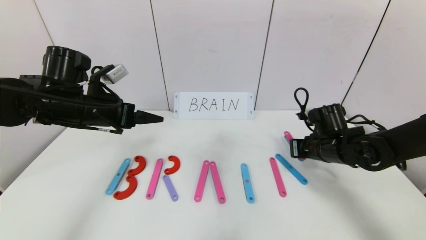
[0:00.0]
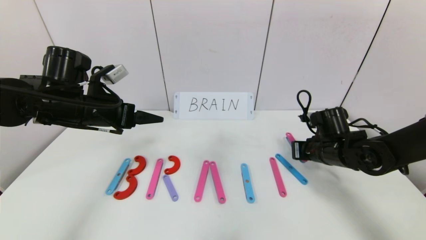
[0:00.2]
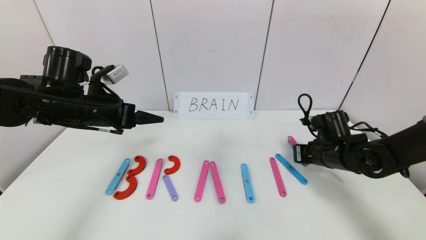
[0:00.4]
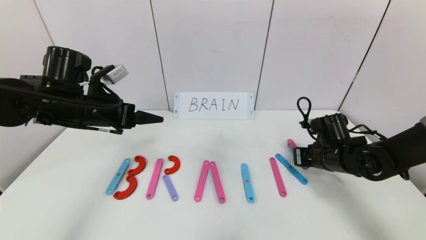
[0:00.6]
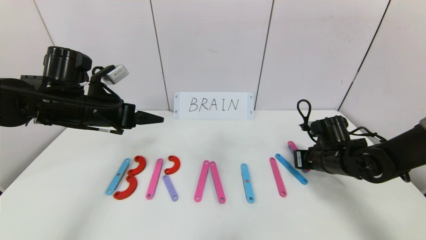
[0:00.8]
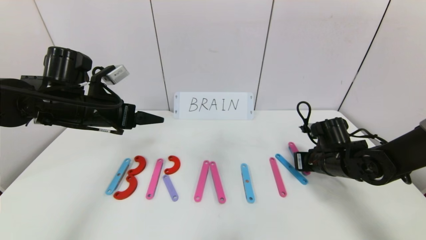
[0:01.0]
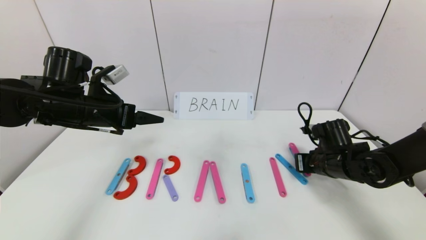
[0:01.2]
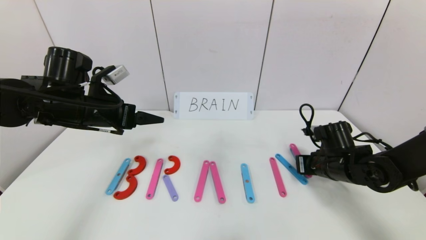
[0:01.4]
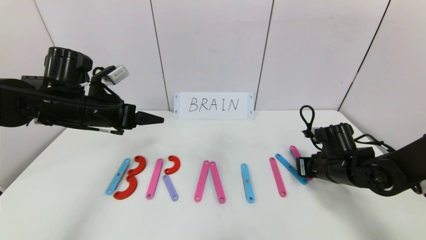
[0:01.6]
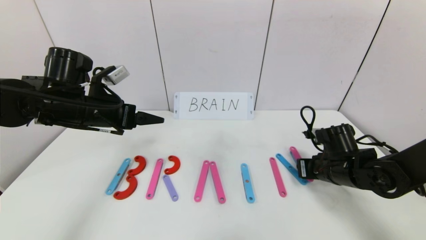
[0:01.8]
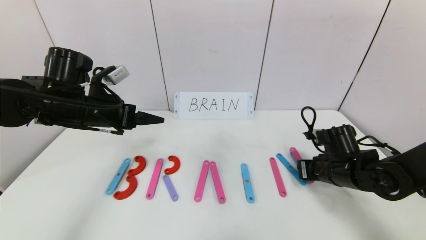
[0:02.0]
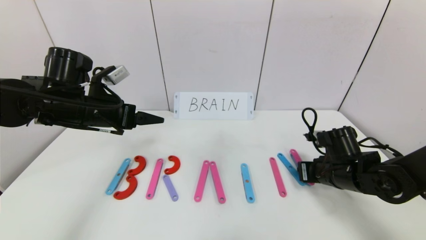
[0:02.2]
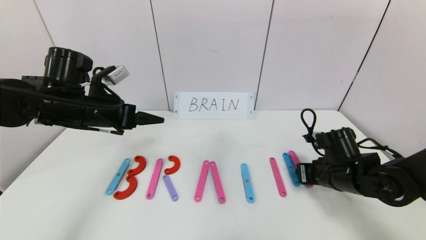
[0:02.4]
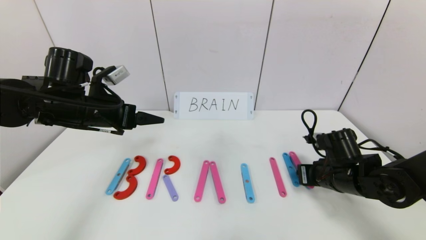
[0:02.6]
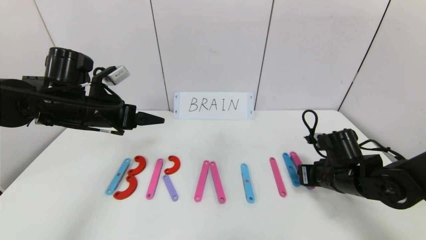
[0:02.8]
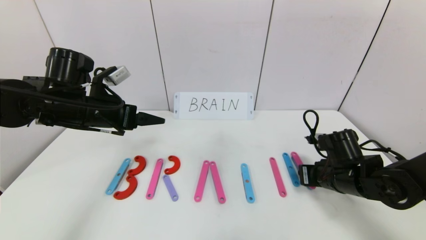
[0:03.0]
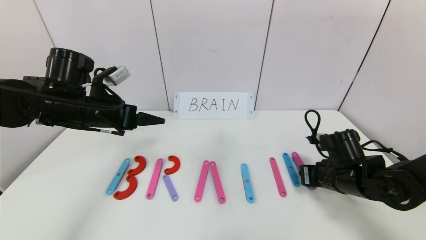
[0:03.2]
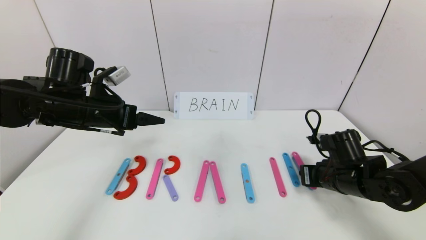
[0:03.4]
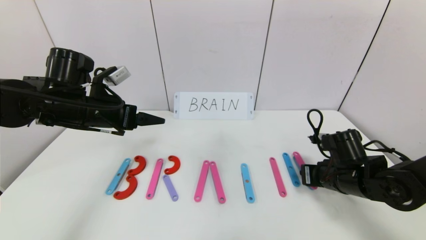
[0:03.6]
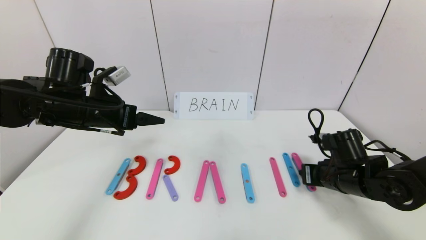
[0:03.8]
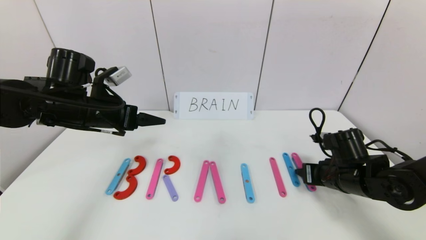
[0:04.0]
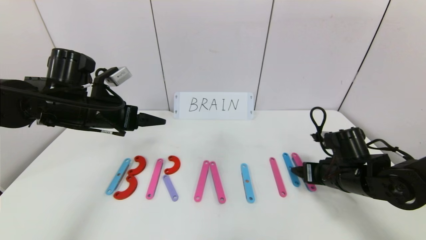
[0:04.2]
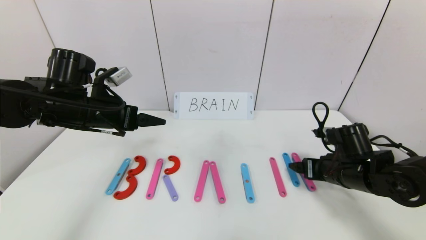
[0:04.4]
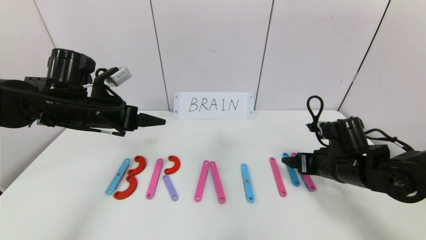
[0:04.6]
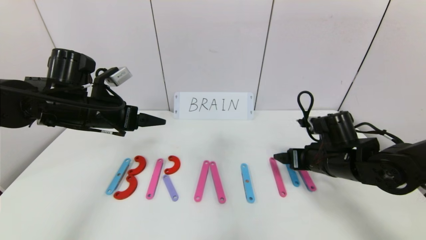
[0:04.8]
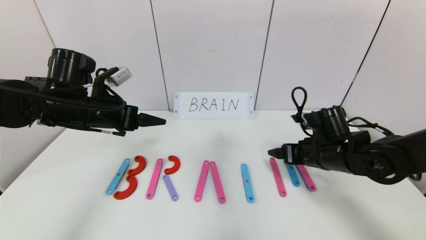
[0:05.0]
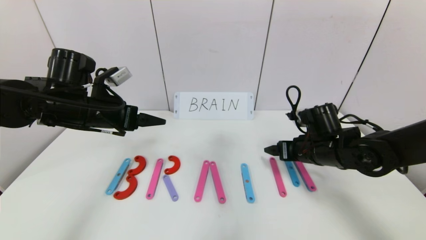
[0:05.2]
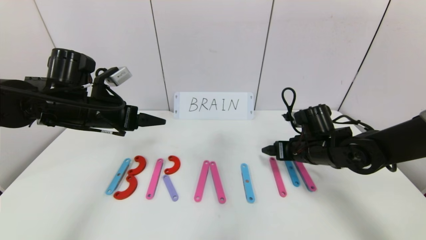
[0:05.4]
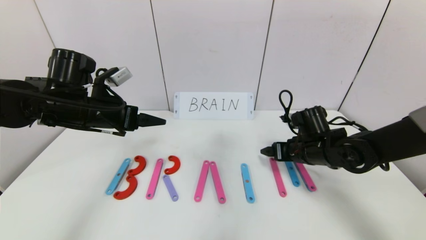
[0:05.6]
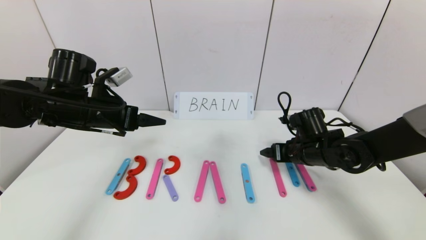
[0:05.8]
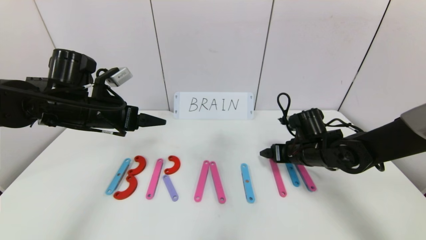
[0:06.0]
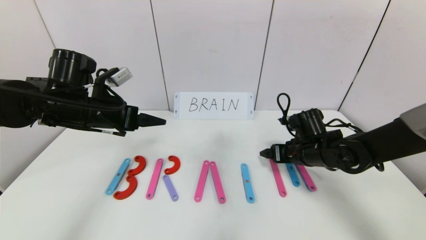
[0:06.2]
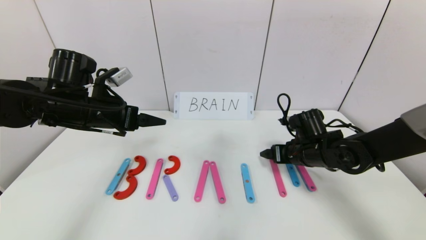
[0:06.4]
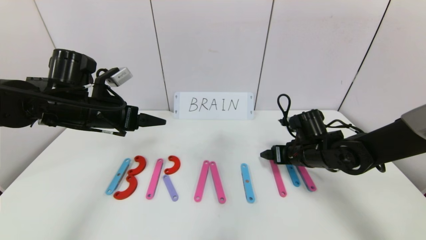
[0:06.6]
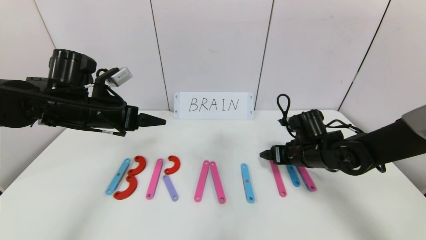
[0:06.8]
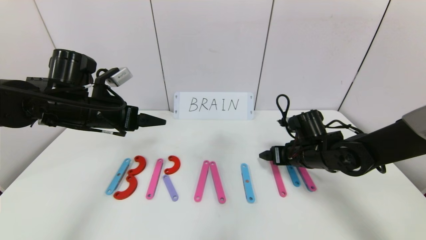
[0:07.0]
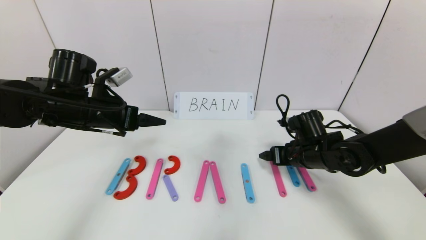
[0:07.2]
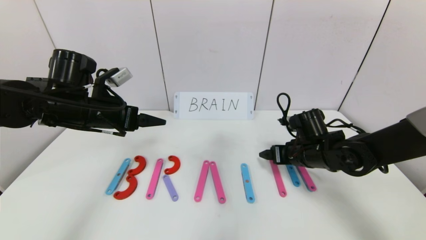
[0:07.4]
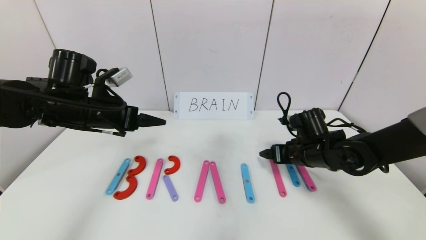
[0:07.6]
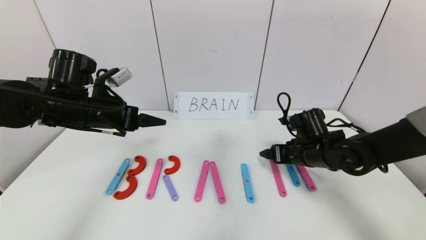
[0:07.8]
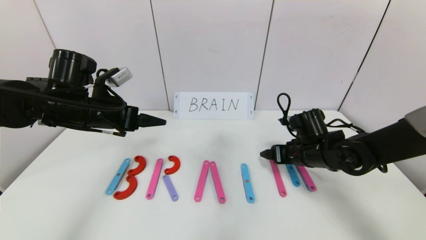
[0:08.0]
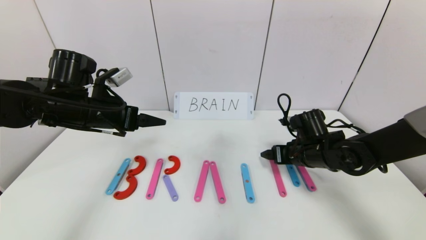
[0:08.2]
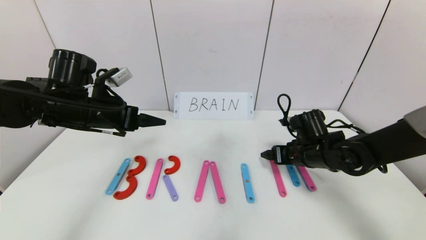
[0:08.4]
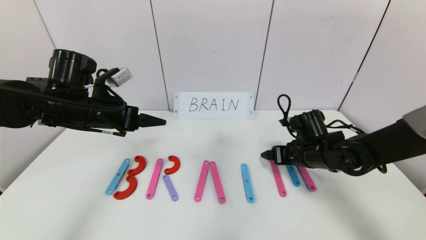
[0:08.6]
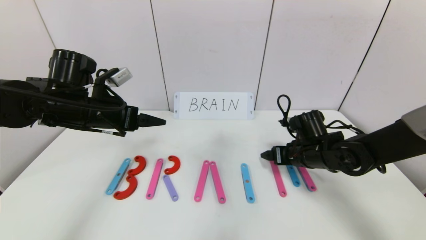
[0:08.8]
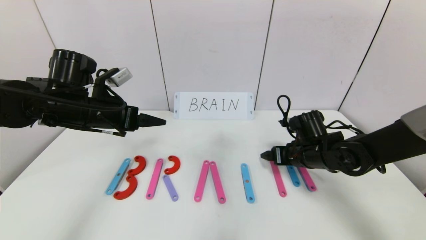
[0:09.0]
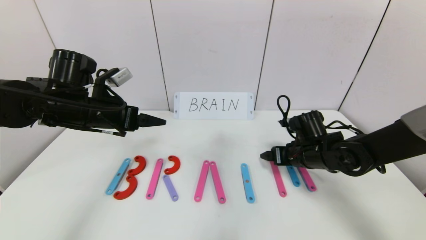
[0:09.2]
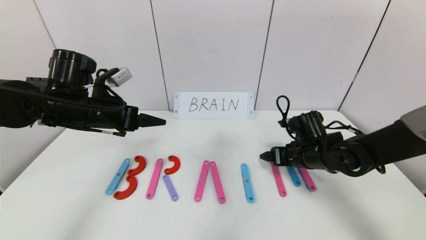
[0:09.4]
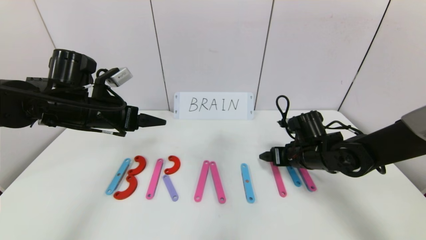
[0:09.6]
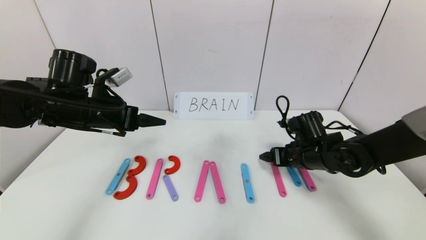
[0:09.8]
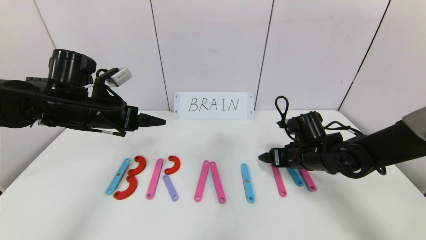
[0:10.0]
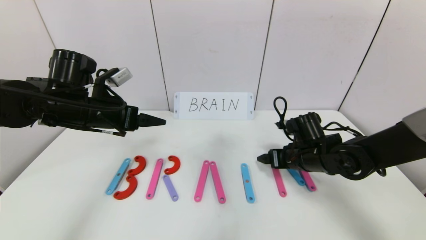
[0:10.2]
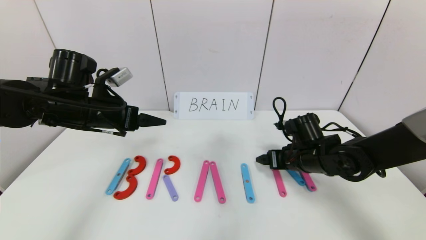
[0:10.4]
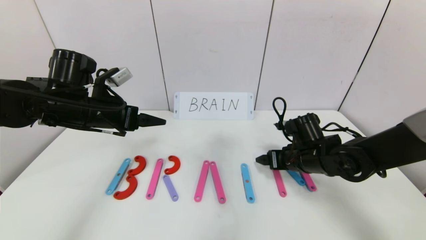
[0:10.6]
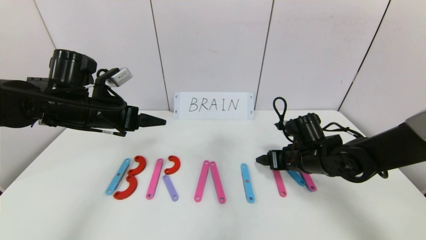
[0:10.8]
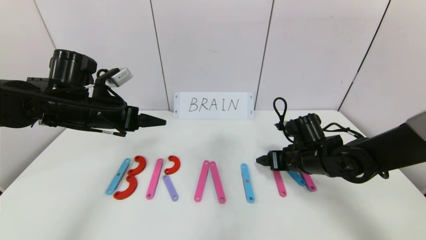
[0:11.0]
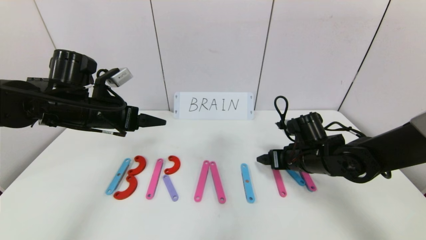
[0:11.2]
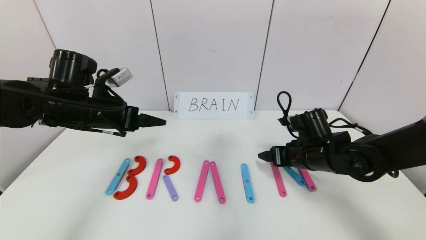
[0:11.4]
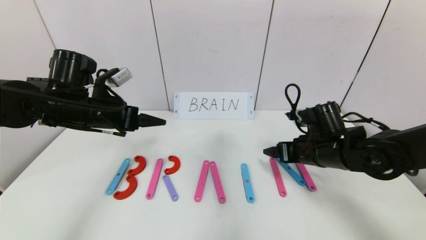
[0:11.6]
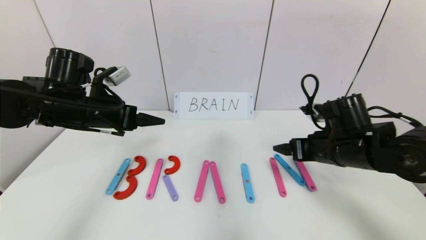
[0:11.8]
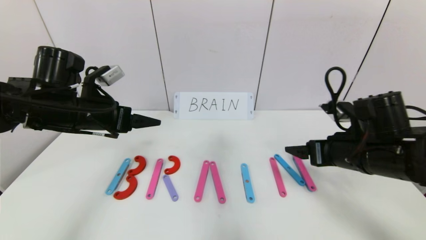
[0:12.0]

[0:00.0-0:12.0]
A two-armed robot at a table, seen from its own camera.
Task of the whole recording: rearrange the word baai as brain.
Step, 0:00.0 to 0:11.6: Place the character N after character I.
0:00.0 to 0:01.6: The grippers make only small movements.
0:01.6 to 0:03.0: There are only small adjustments of the grippers.
0:03.0 to 0:04.4: The right gripper opens its fingers.
0:04.4 to 0:06.0: The right gripper goes approximately 10 cm forward and to the left.
0:06.0 to 0:09.0: Both grippers stay put.
0:09.0 to 0:10.4: The grippers stay close to where they were, moving slightly.
0:10.4 to 0:12.0: The right gripper heads upward, backward and to the right, covering about 15 cm.

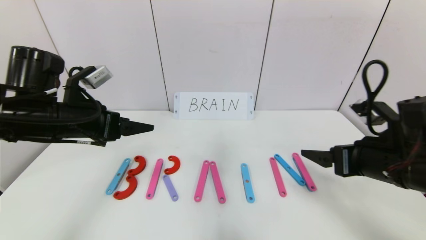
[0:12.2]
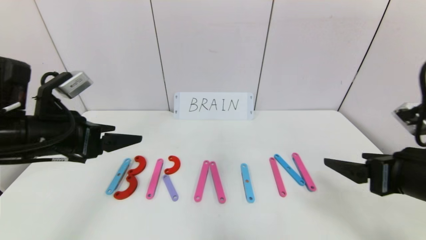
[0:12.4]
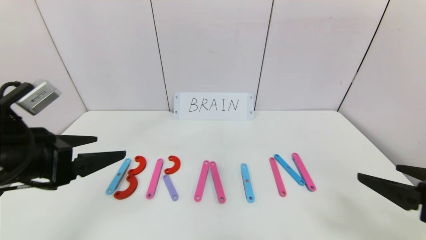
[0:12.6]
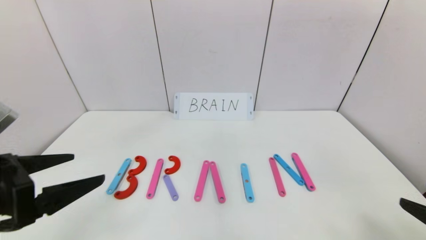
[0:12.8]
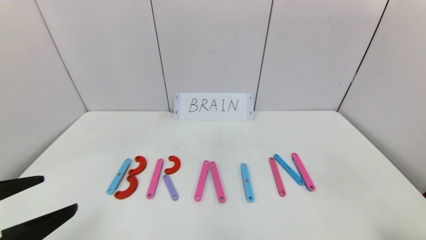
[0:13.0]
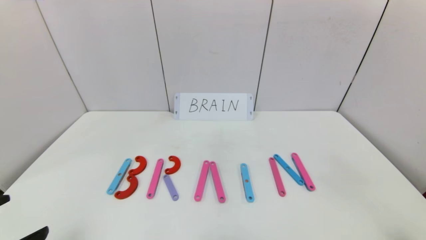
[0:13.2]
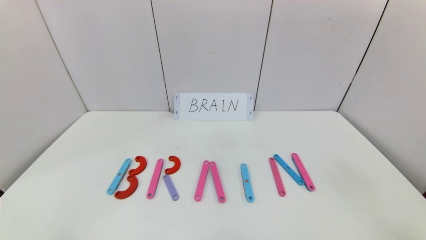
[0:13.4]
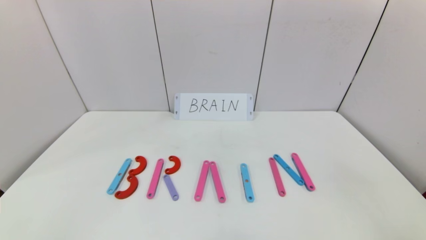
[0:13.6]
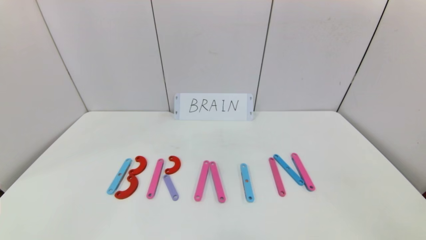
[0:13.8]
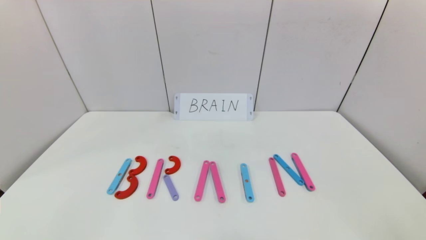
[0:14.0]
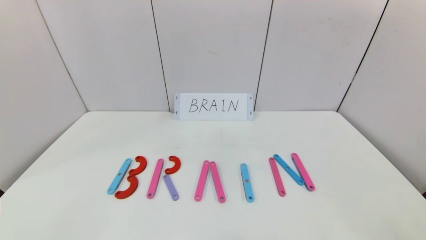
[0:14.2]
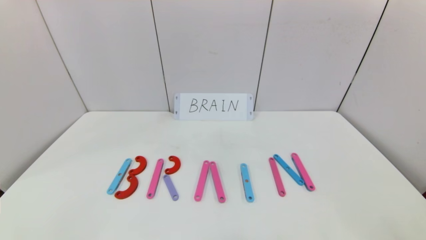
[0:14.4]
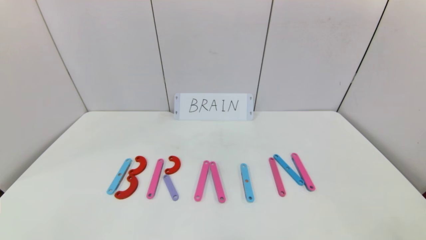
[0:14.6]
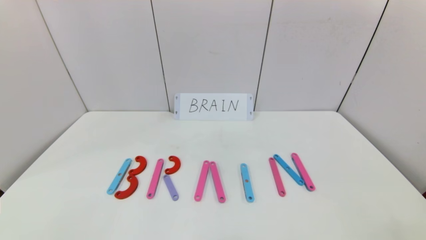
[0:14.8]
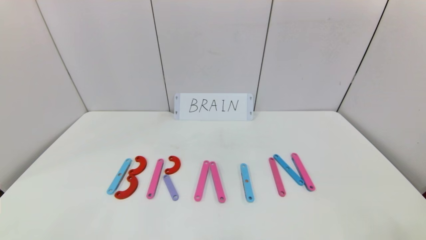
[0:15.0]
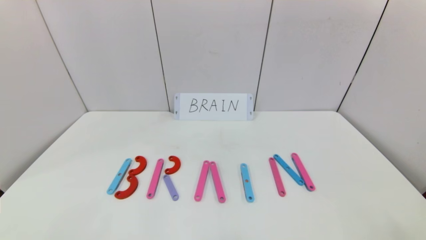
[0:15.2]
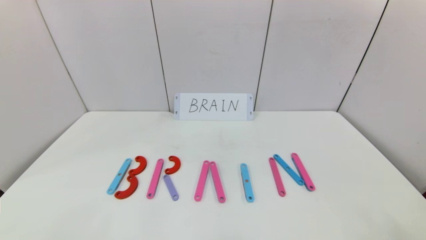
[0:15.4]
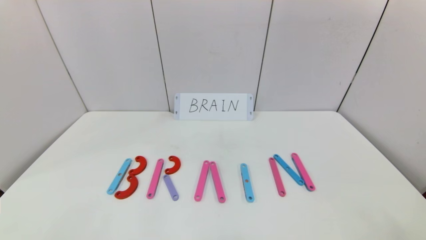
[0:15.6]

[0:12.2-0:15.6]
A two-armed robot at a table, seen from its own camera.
Task of the whole recording: rearrange the word baai as brain.
0:12.2 to 0:13.8: The grippers both shift backward by some 25 cm.
